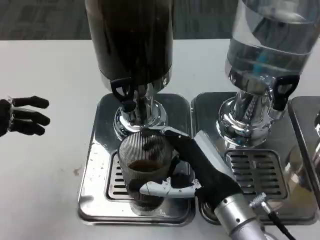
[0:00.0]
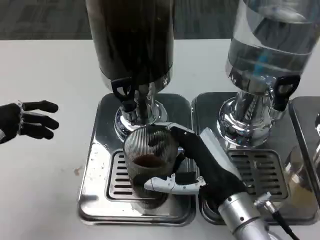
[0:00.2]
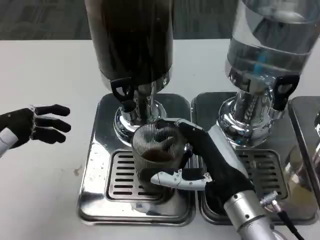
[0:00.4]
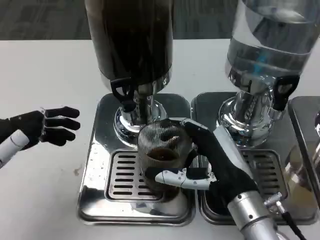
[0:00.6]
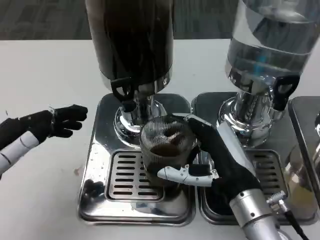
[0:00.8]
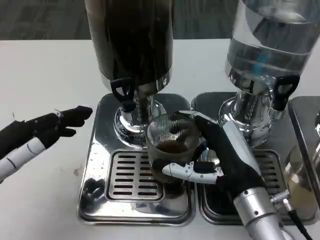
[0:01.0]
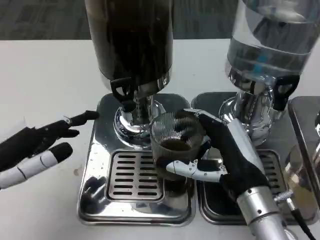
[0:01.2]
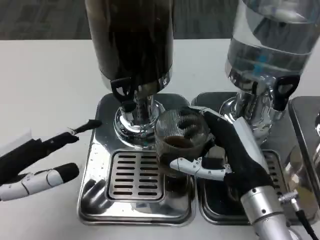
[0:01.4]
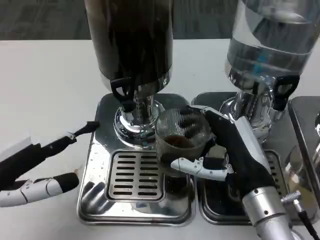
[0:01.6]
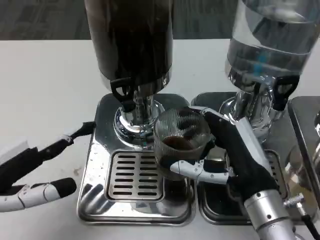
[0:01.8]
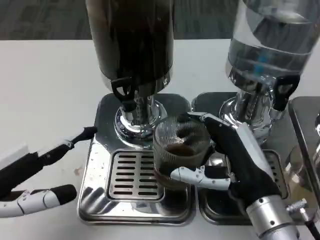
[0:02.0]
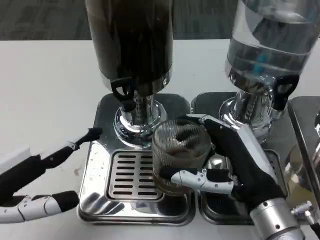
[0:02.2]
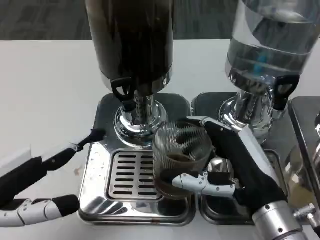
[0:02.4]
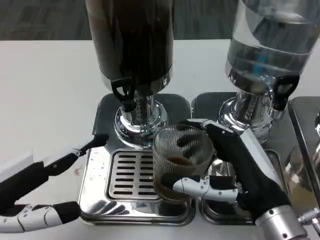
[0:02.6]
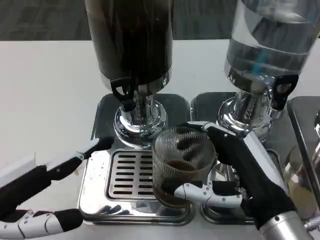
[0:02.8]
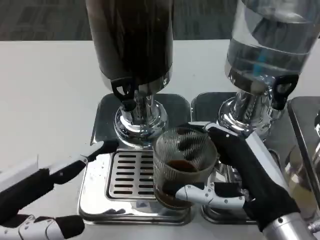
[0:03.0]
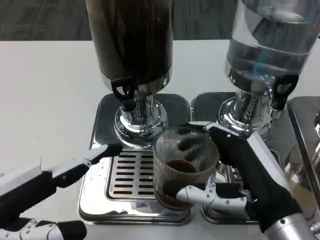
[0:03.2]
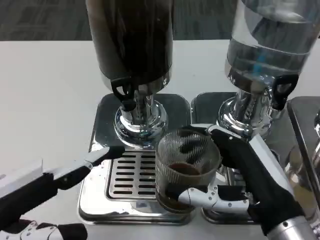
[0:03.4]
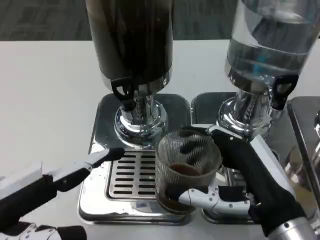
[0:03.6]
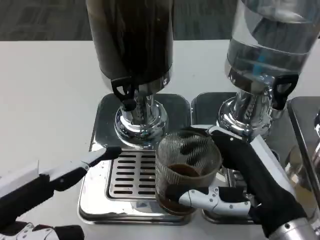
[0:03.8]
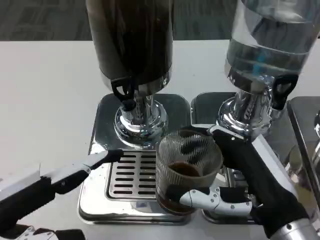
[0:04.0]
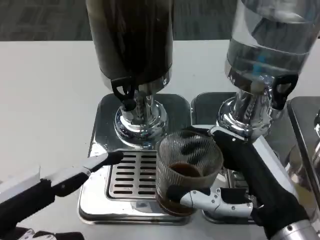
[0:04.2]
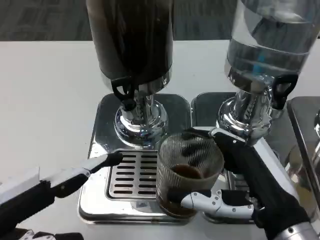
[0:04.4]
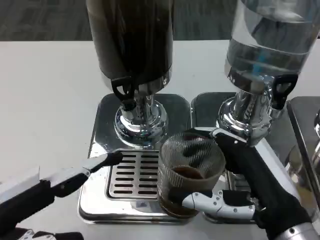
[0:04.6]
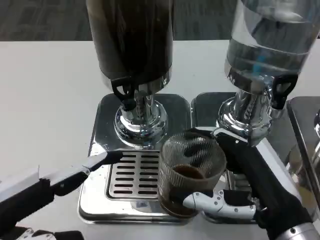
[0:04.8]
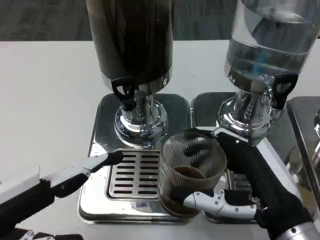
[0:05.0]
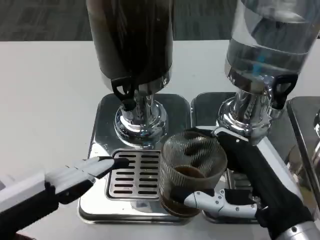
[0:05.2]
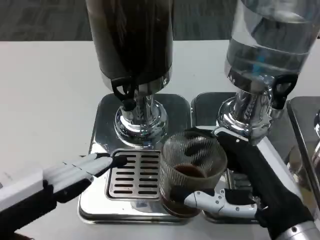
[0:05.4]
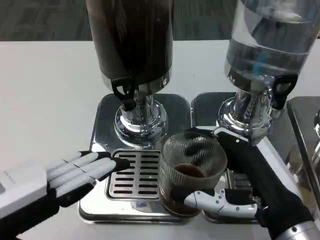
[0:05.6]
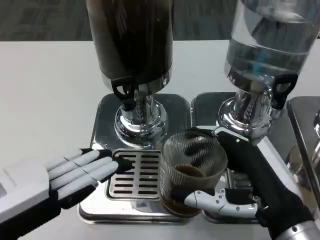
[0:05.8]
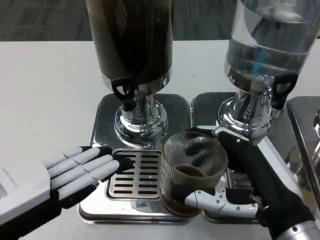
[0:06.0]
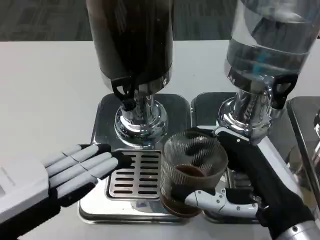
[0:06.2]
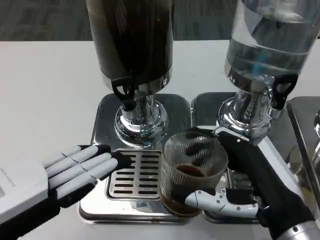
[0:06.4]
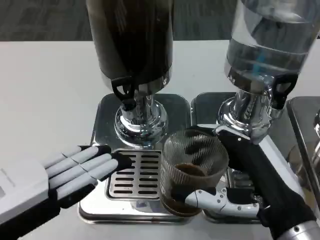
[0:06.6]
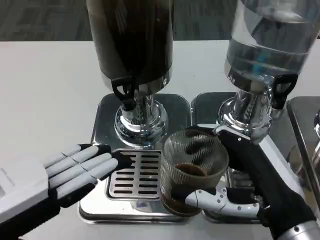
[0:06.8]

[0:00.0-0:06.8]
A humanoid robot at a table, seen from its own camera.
Task of the whole recording: Grasp the cup under the faucet to collect the drink, then remove the cup.
1.4 to 2.8 s: The right hand travels backward by some 5 cm.
2.8 to 5.4 s: The hands make only small movements.
5.4 to 6.8 s: The hands move only a little.

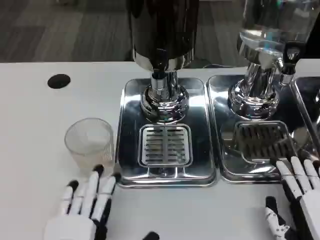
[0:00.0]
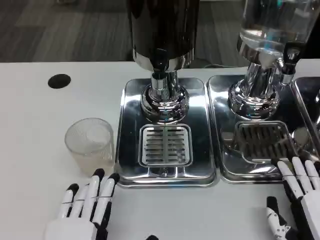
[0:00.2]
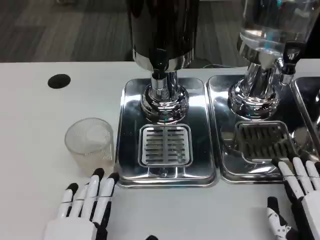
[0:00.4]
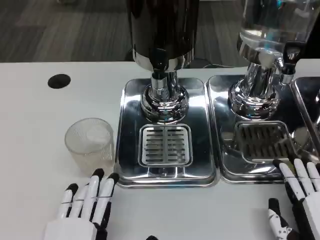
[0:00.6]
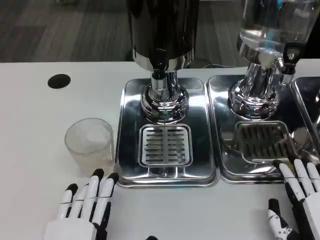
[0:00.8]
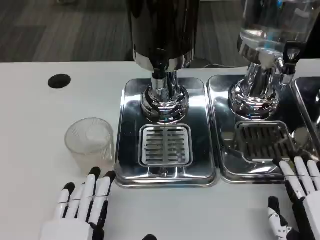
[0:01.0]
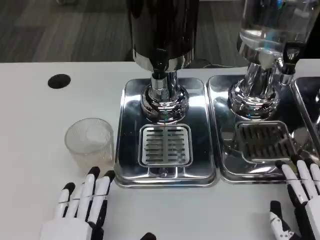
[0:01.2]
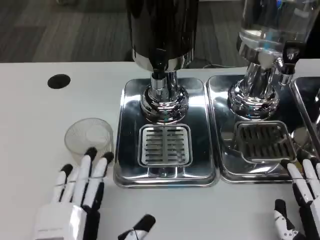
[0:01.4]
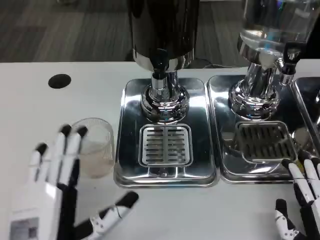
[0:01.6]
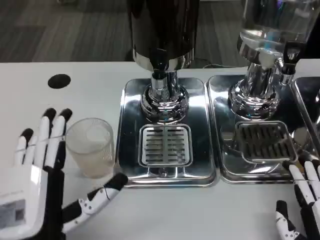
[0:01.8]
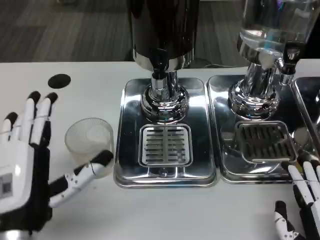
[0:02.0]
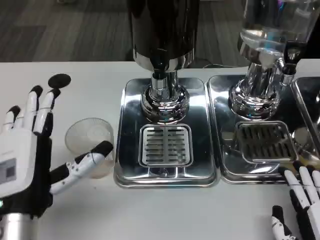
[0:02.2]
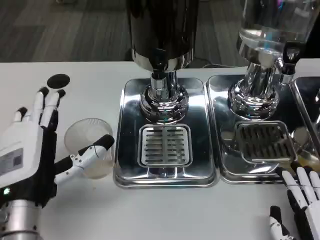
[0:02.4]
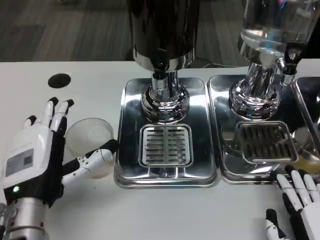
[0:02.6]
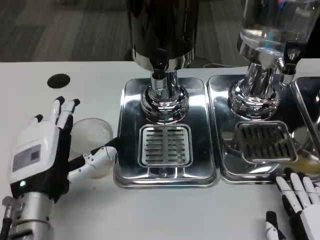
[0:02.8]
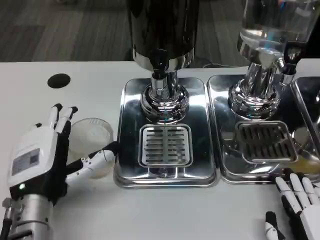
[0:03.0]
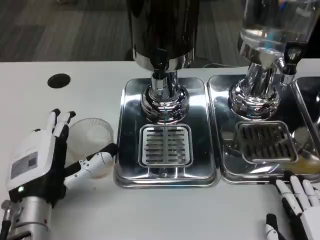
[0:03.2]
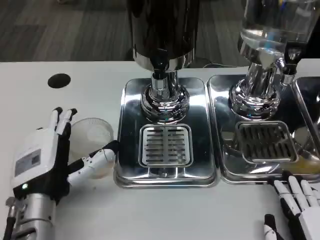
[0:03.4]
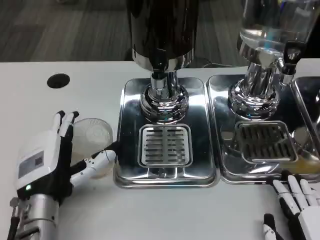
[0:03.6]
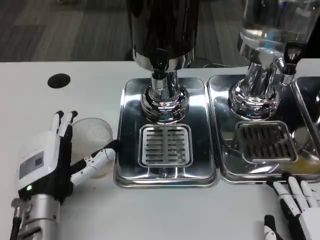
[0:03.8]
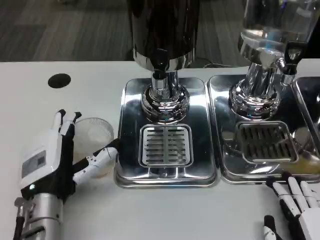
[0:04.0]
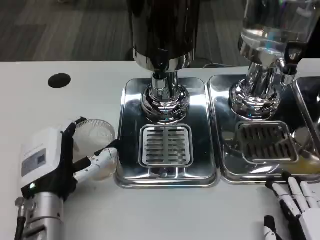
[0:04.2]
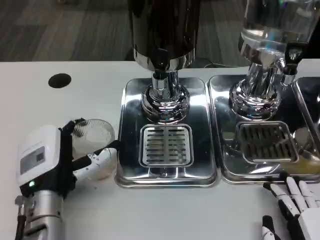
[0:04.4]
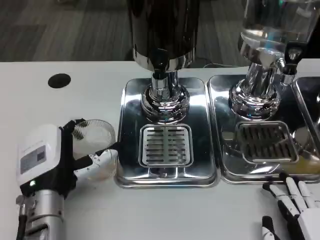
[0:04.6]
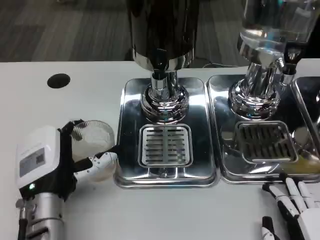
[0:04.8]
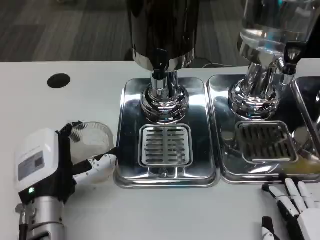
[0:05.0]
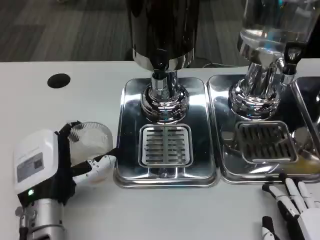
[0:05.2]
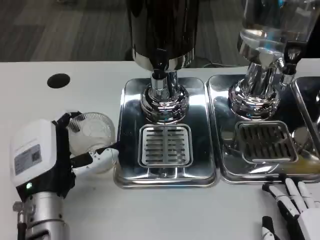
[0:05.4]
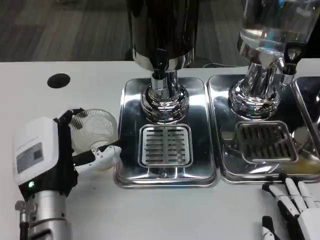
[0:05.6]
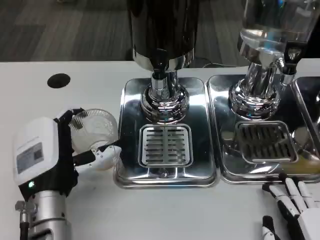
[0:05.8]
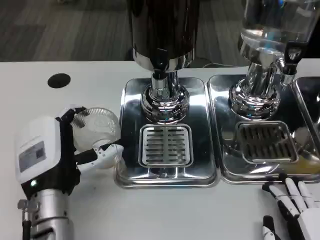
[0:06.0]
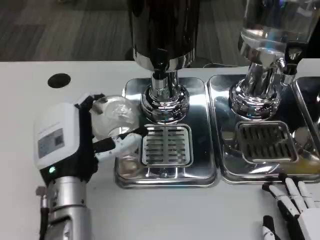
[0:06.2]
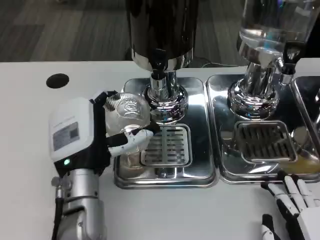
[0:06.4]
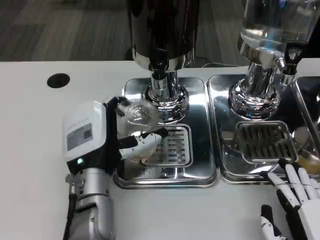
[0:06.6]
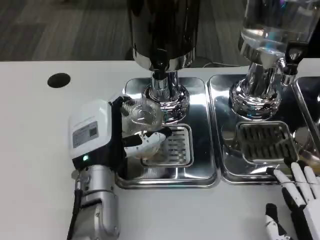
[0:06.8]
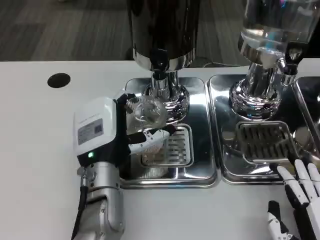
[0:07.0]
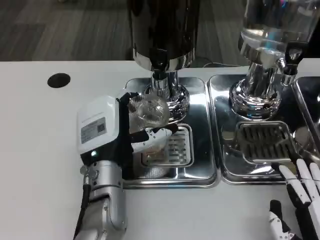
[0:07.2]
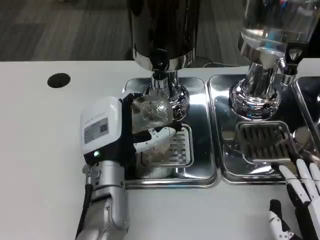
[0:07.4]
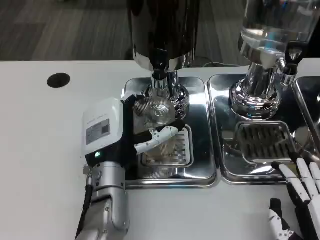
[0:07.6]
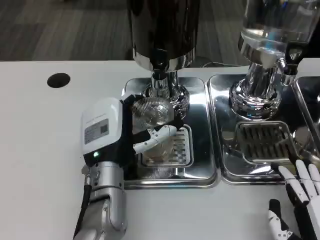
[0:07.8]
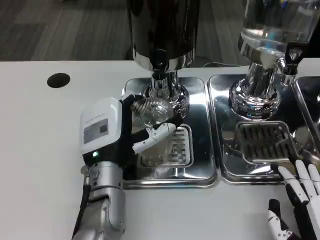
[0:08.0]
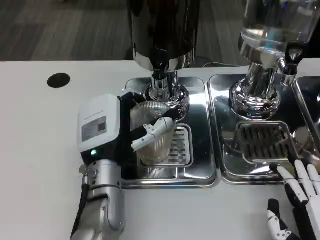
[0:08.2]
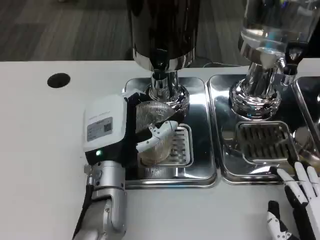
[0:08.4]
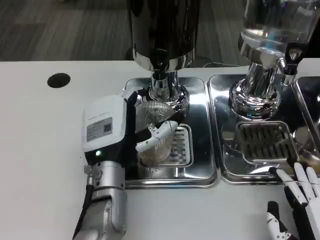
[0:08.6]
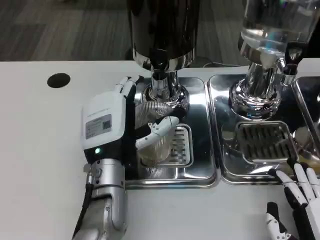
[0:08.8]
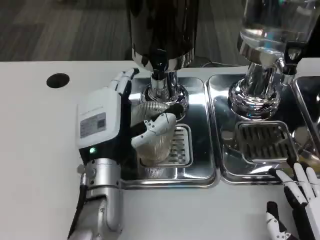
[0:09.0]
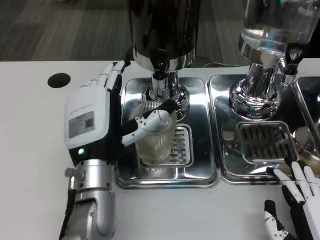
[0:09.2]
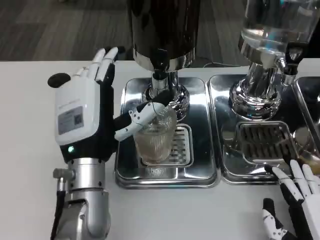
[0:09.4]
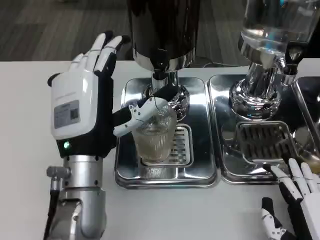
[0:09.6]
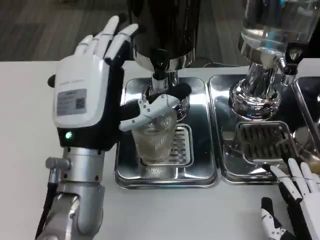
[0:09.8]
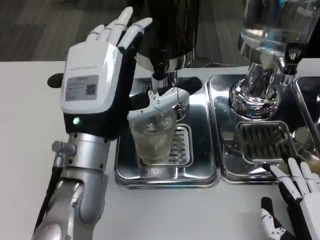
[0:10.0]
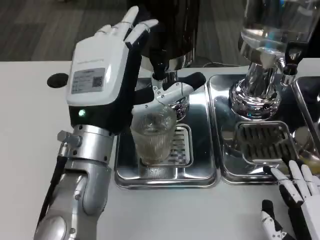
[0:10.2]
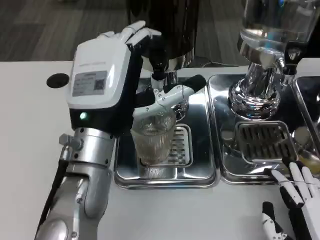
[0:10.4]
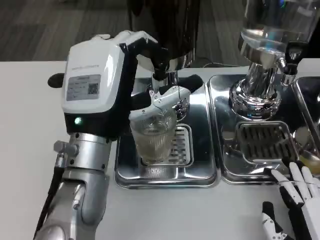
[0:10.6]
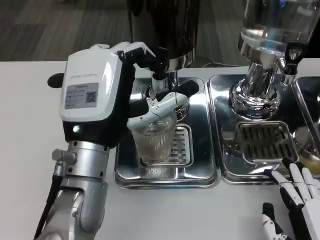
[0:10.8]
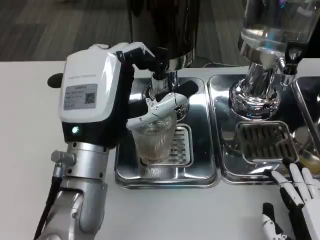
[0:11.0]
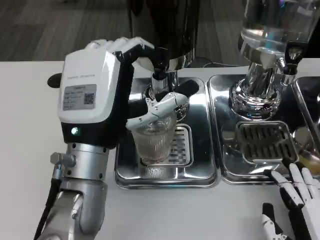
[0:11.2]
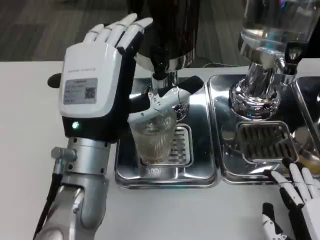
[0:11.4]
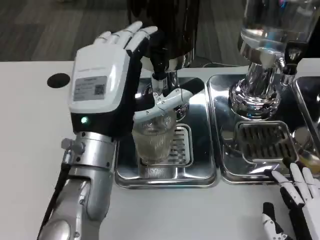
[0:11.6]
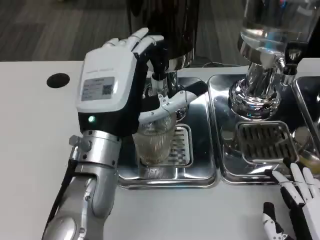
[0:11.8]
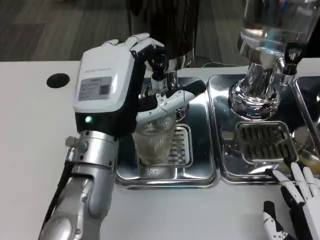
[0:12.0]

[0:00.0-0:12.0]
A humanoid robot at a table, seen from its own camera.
Task of the whole recording: Grasp the cup under the faucet to collect the drink, then remove the cup.
0.0 to 1.6 s: The hands make only small movements.
1.6 to 3.0 s: The left hand travels forward by about 10 cm.
3.0 to 6.0 s: The hands stay close to where they were, moving slightly.
6.0 to 7.6 s: The left hand heads to the right, covering roughly 5 cm.
7.6 to 9.0 s: The hands make only small movements.
9.0 to 10.4 s: The left hand travels upward by some 5 cm.
10.4 to 12.0 s: There are only small adjustments of the hands.

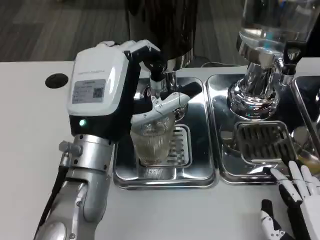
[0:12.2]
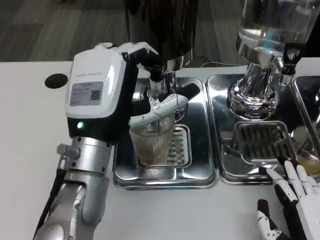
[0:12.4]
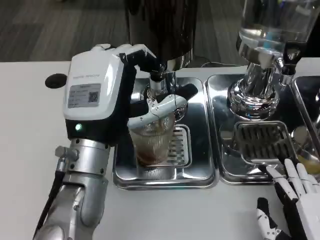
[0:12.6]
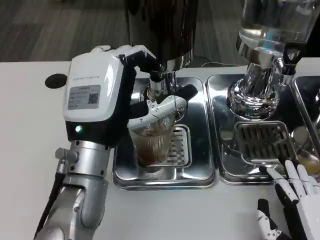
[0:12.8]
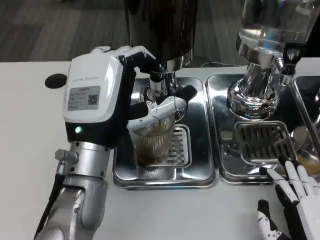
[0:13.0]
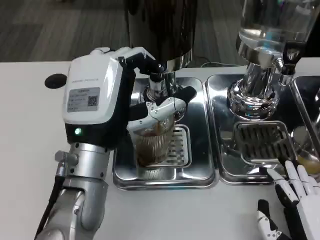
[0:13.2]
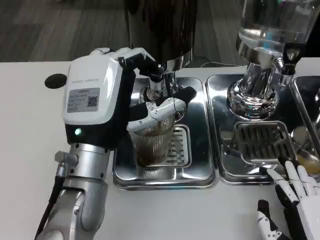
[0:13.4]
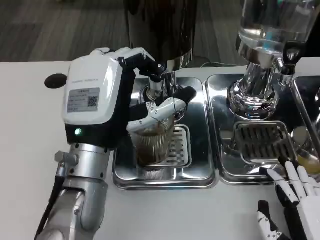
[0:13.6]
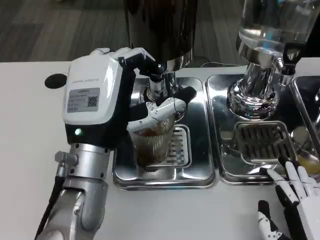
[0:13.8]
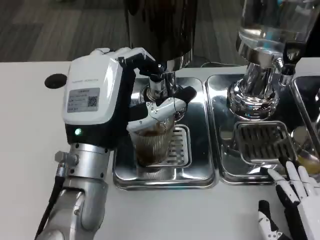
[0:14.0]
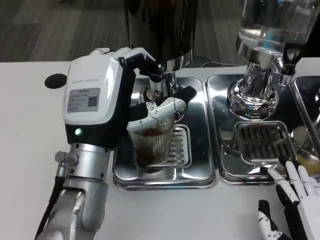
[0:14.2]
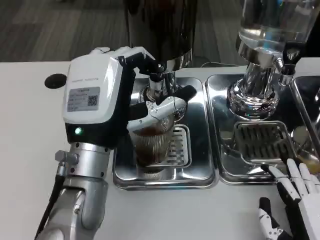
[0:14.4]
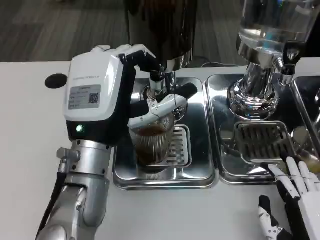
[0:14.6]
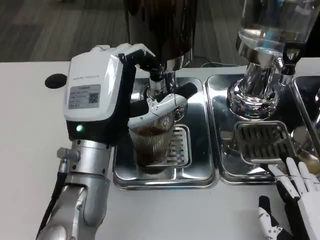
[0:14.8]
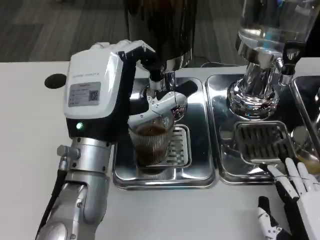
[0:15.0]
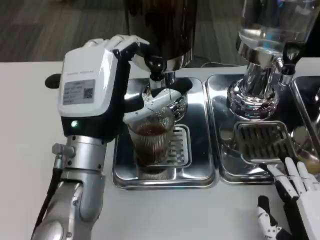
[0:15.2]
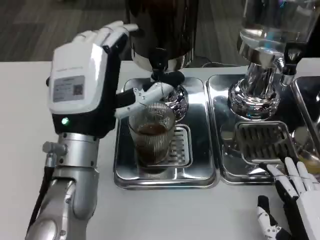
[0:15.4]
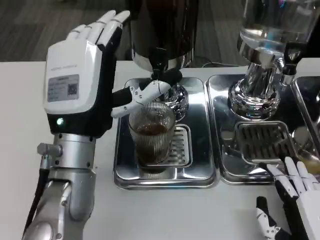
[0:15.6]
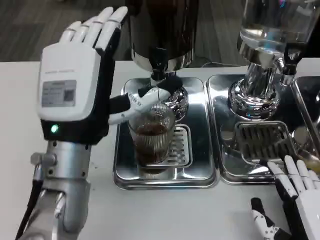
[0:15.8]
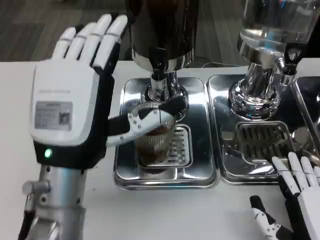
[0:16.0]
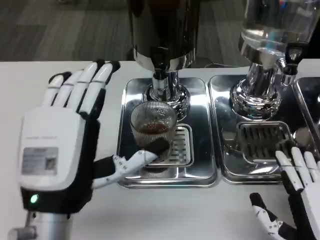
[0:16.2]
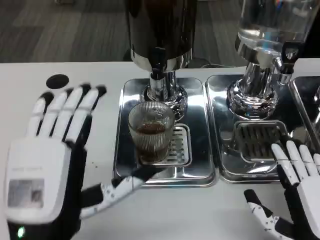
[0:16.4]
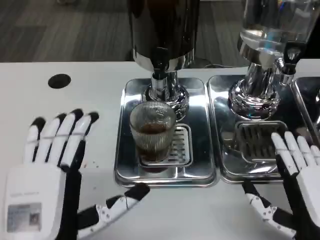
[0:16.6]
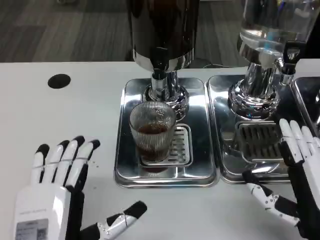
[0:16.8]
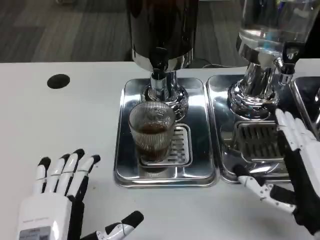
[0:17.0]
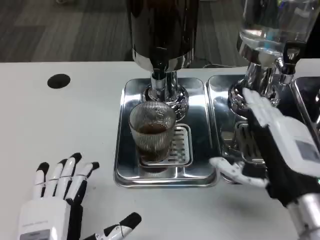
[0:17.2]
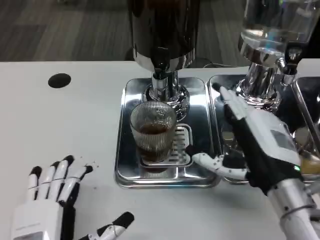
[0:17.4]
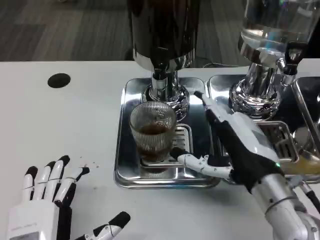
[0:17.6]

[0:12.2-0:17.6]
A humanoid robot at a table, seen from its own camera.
Task of the whole recording: Grasp the cup under the faucet to collect the drink, then remove the cup.
12.2 to 15.0 s: Neither hand changes place.
15.0 to 16.2 s: The left hand is displaced backward by about 10 cm.
16.2 to 17.6 s: The left hand shifts approximately 10 cm downward and backward, while the right hand is displaced forward, to the left and upward by some 15 cm.
